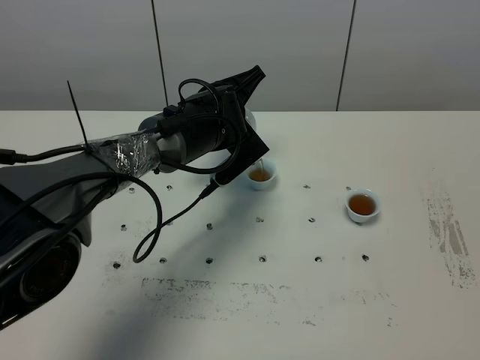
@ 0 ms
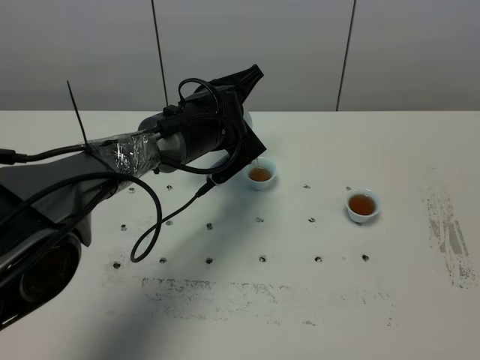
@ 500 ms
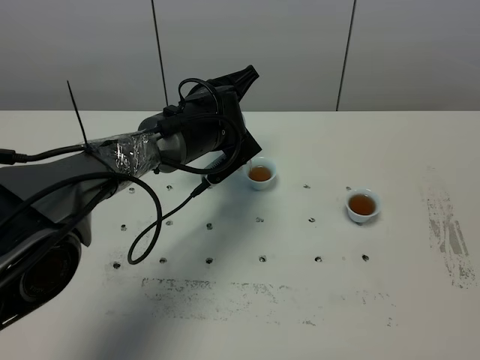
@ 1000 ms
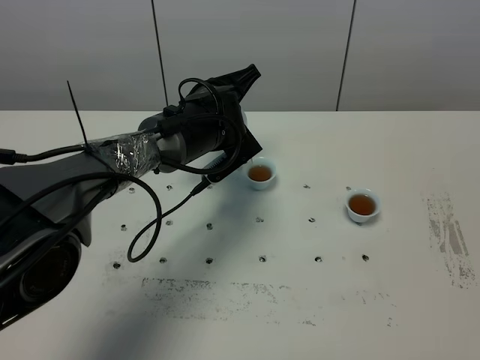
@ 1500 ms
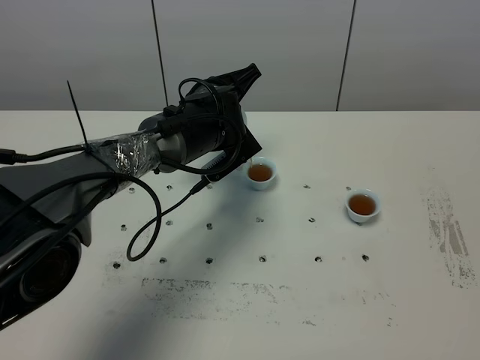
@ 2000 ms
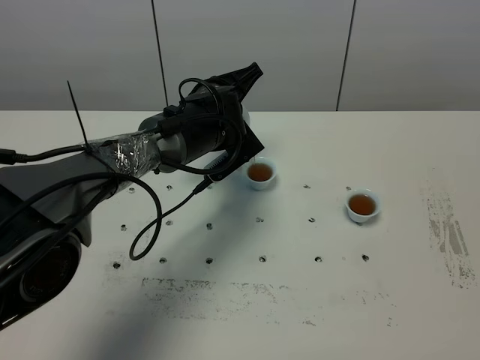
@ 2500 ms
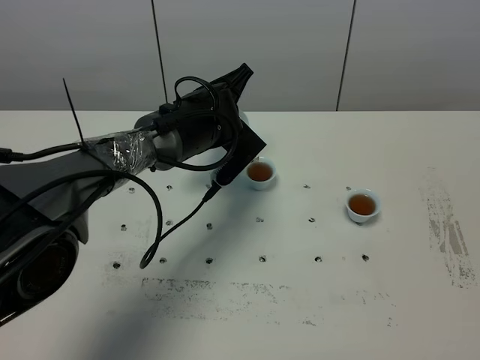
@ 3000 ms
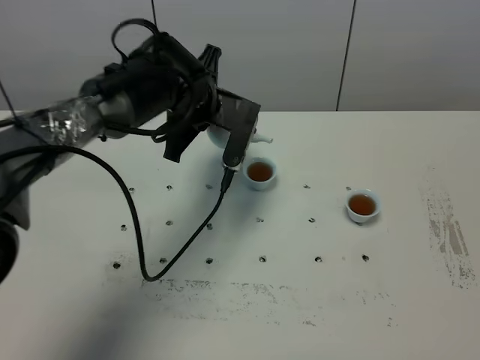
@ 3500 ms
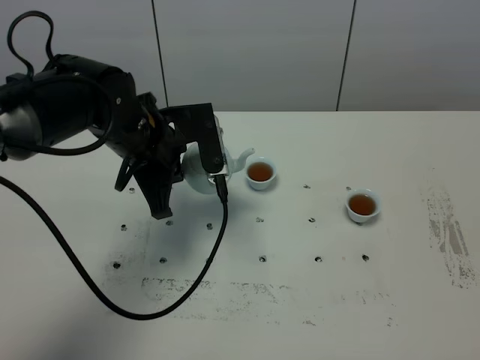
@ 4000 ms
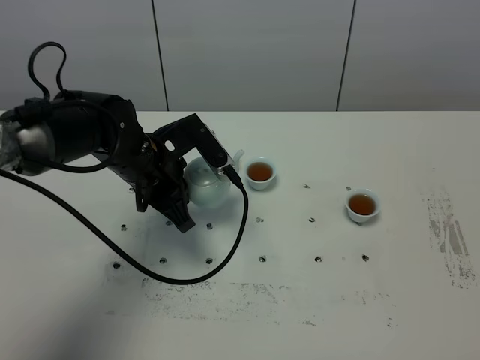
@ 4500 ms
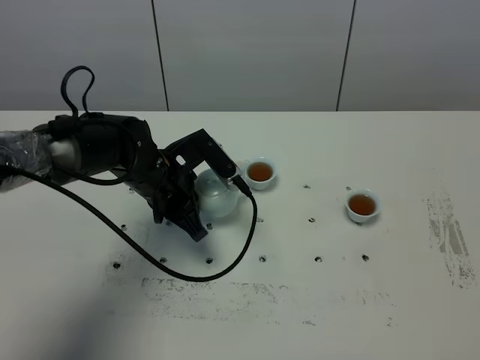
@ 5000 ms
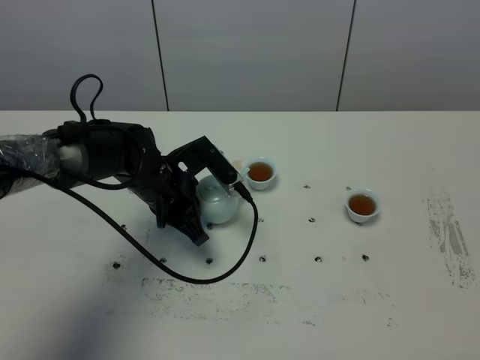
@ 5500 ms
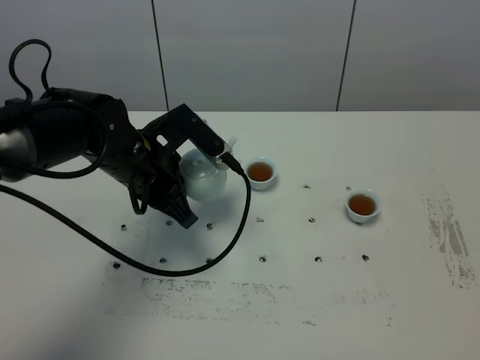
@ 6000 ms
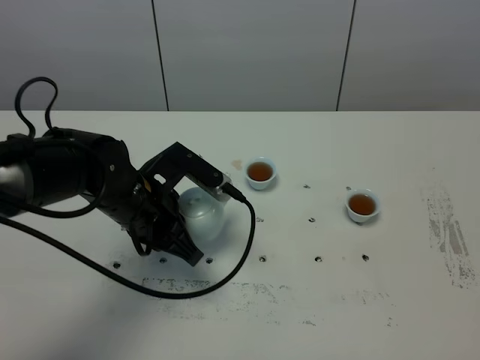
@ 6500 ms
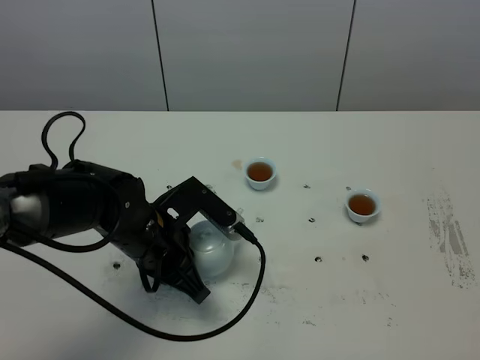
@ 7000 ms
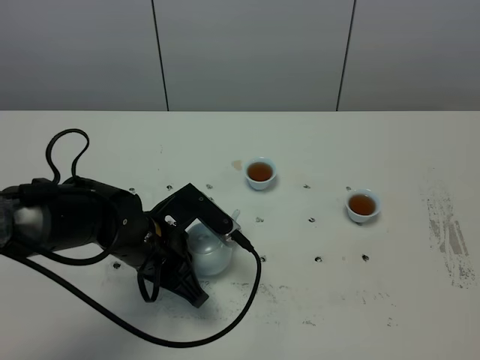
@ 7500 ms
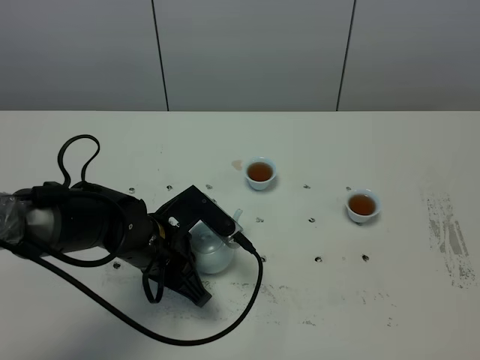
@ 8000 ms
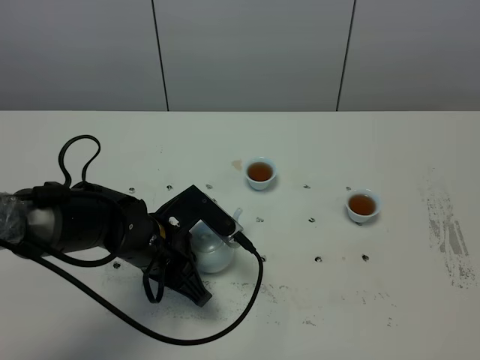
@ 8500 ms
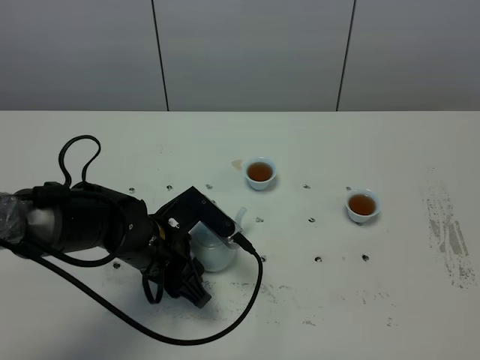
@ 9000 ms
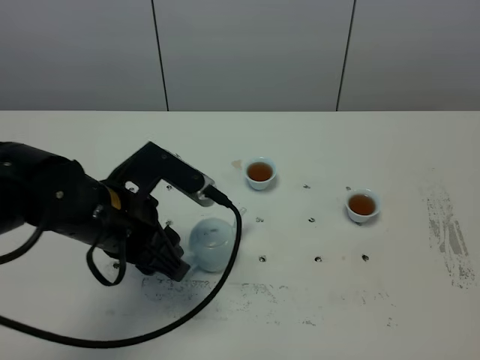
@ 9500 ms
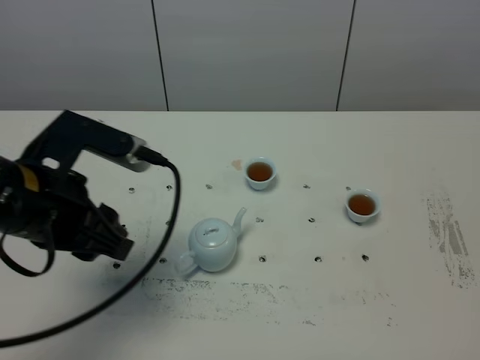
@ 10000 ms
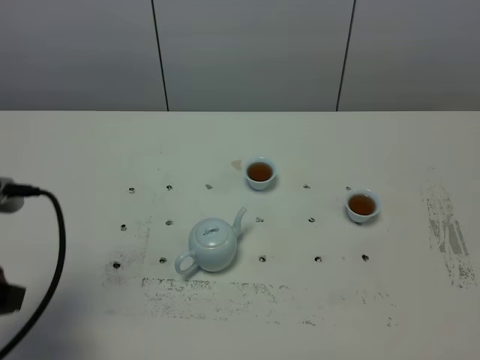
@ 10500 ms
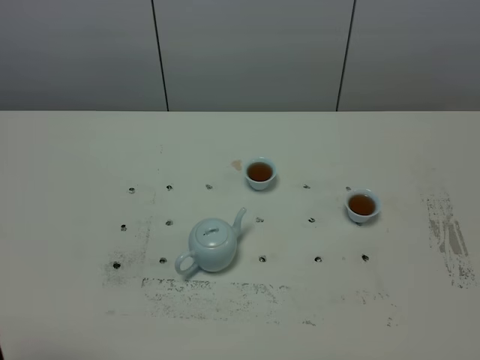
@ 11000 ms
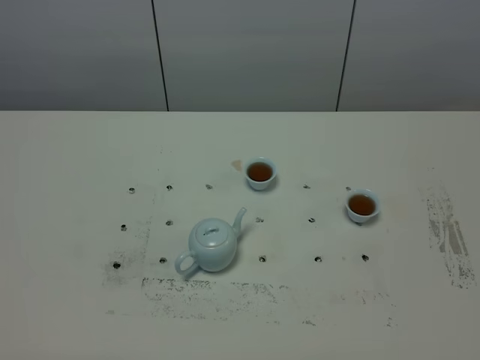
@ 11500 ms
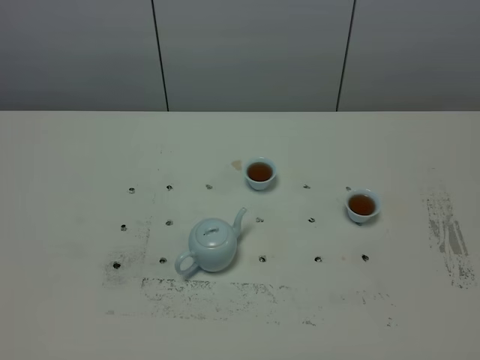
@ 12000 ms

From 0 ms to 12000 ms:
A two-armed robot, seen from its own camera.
Task of the whole recording: grasp the blue porcelain teapot and pour the tea into the two blue porcelain teacups one by one, put the blue porcelain teapot back in its original place.
Step, from 0 ms to 3000 ms: Pour tea into the teacup with the left gripper.
From 0 ms to 2000 ms: There are only small adjustments of the grippers.
From 2000 ms to 4000 ms: The left gripper moves to the left and backward, some 15 cm.
From 4000 ms to 6000 ms: The left gripper reaches approximately 10 cm downward, then returns.
From 6000 ms to 8000 ms: The left gripper travels downward and backward by roughly 10 cm.
From 8000 ms to 10000 ms: The left gripper goes roughly 20 cm upward and to the left, and opens.
From 10000 ms to 12000 ms: The left gripper is displaced backward by approximately 25 cm.

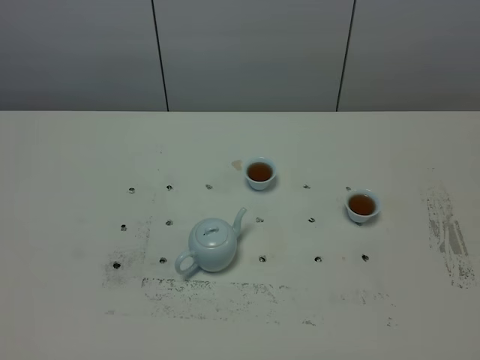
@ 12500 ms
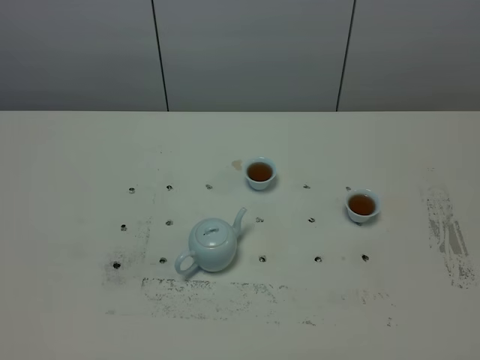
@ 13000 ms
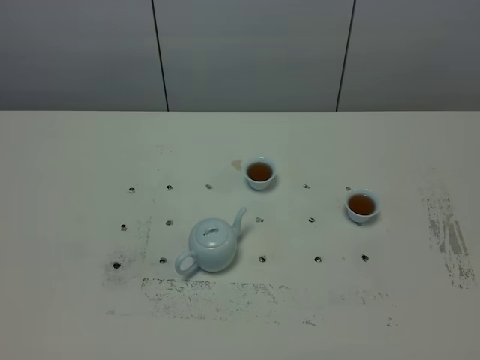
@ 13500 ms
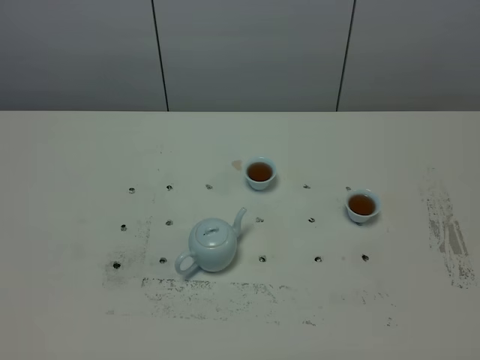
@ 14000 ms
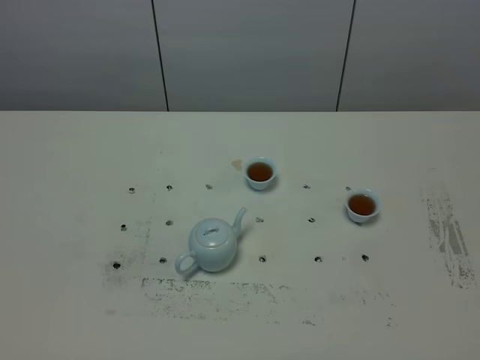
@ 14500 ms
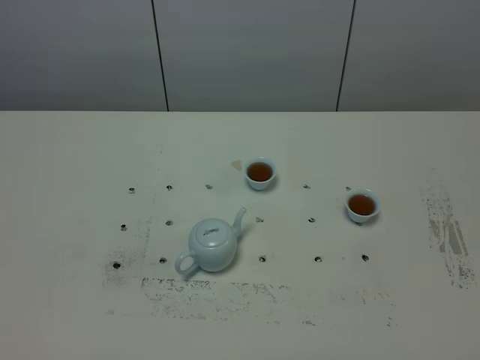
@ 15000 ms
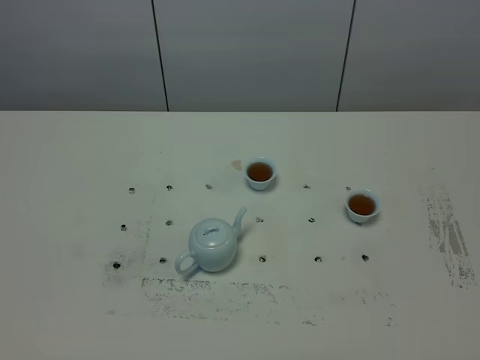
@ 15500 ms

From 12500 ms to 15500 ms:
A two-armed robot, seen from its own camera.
Task of the whole recording: grasp the blue porcelain teapot and pour the tea into the two blue porcelain teacups one by one, put the blue porcelain teapot back in its original place.
From 12500 ms to 15500 ms: The two grippers keep their place.

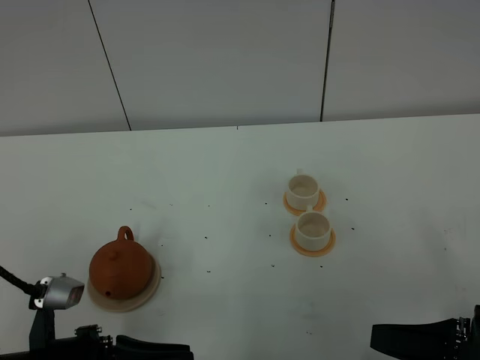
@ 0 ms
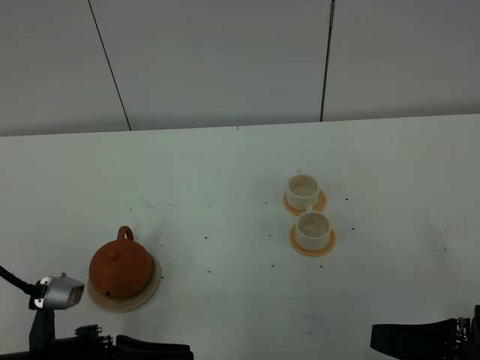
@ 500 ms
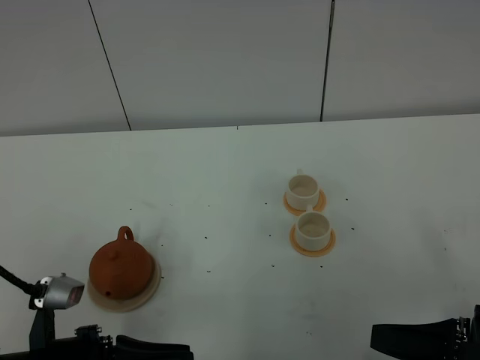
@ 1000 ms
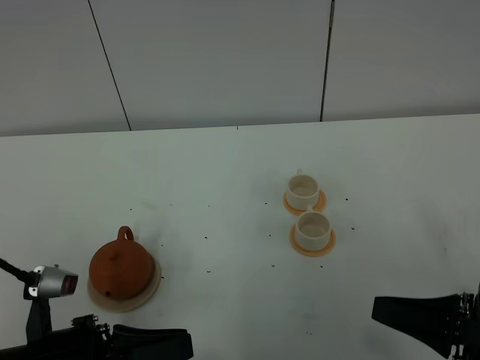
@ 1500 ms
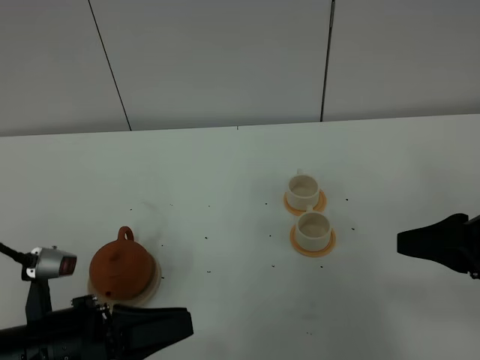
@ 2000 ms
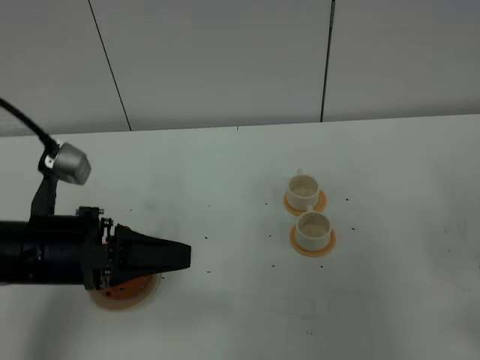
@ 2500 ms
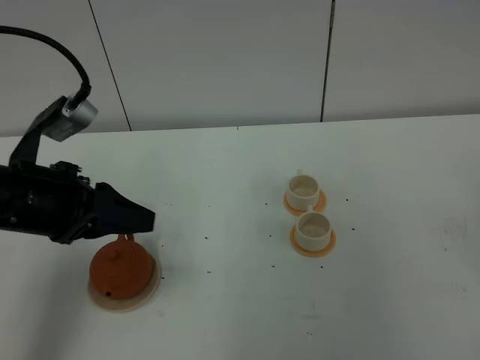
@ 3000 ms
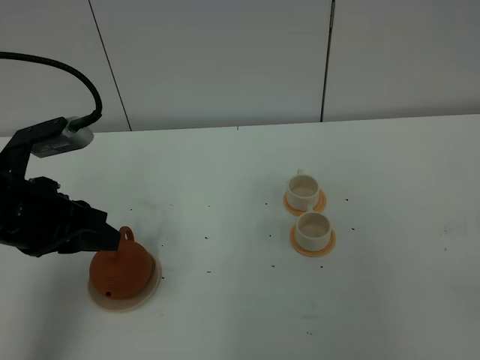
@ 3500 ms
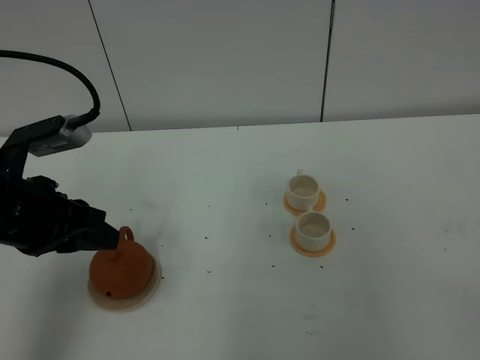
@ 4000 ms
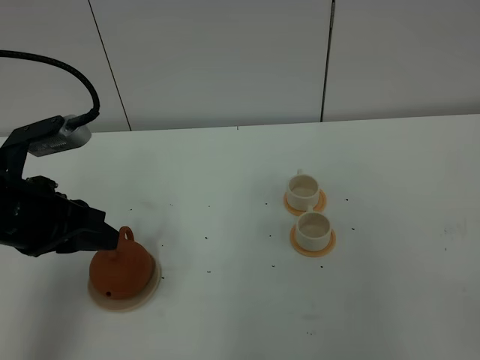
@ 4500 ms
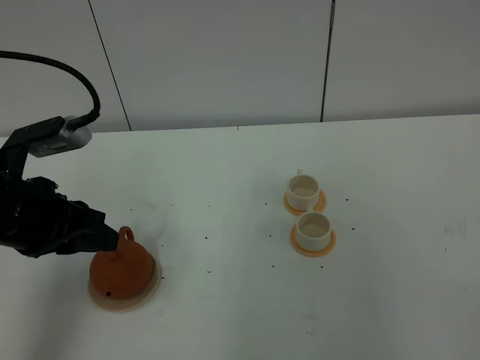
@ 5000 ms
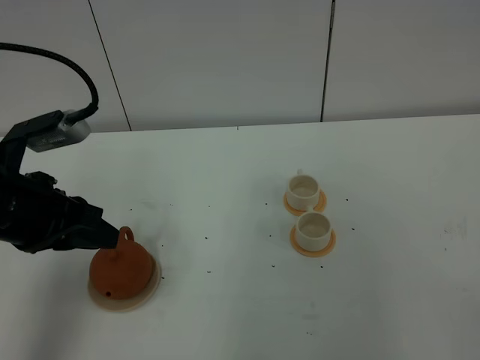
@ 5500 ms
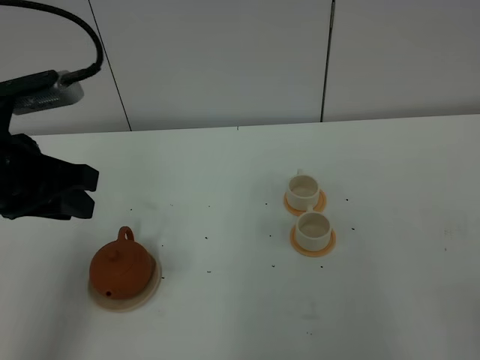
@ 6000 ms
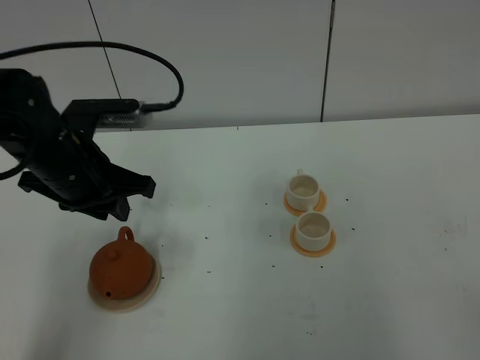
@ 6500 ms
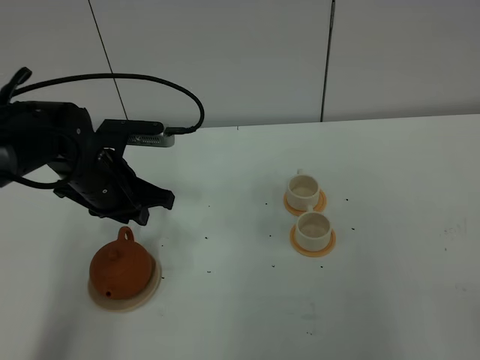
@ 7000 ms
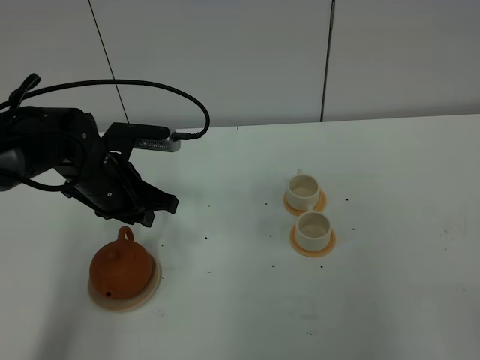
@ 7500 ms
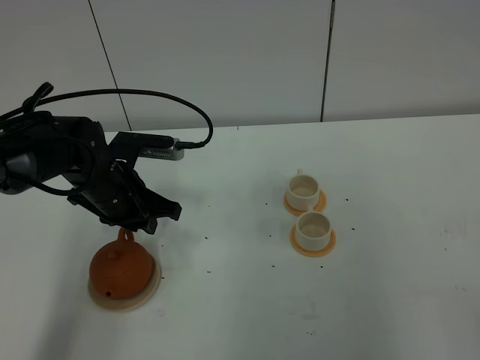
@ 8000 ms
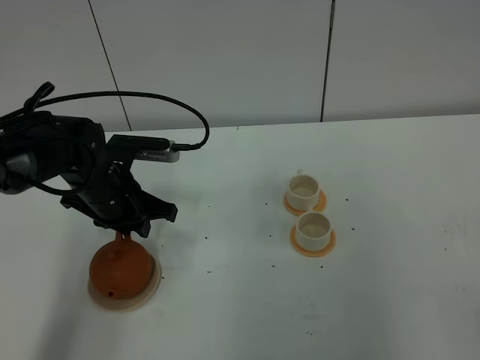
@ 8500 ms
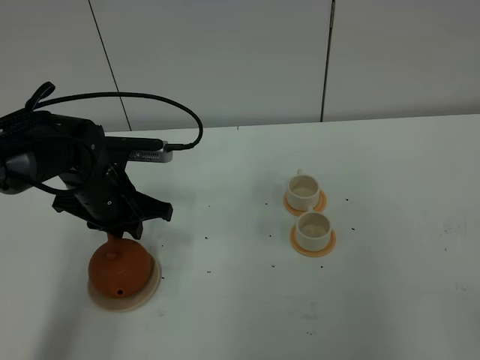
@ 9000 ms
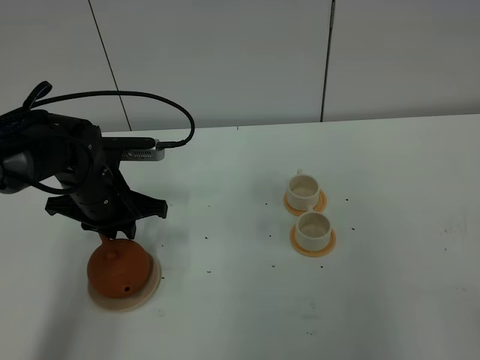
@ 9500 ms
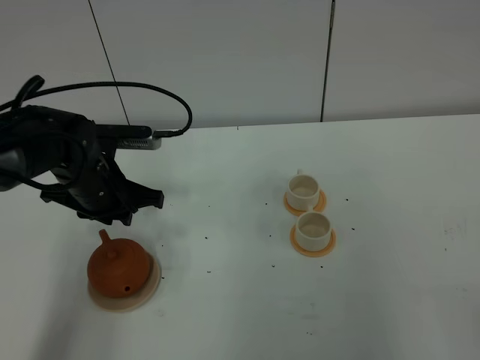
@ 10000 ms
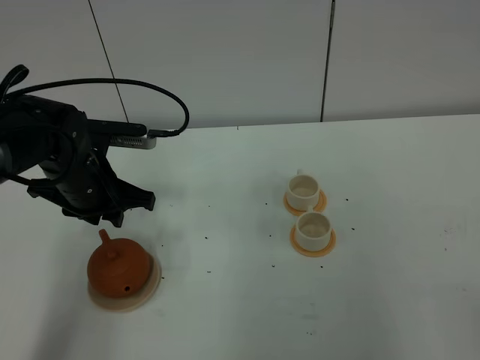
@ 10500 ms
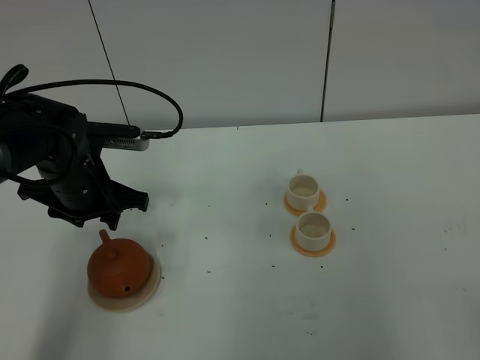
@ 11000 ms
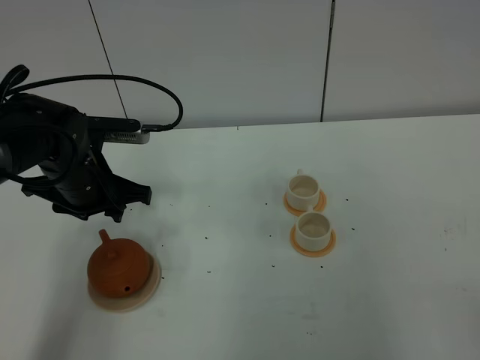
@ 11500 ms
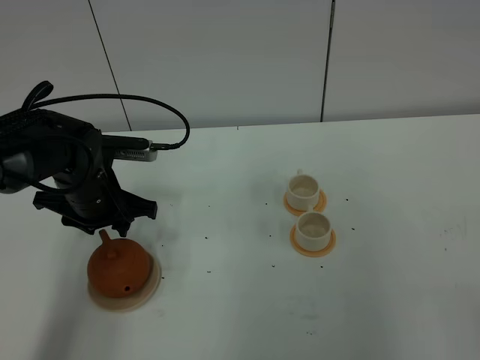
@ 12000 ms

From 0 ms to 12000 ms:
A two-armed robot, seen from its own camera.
Task of the whole recording: grasp the brown teapot and pour the tea into the two white teacups one by one, put the brown teapot back in its original place.
From 0 ms to 2000 ms: The right gripper heads forward and upward, covering about 10 cm.
From 2000 ms to 4000 ms: The right gripper shifts roughly 20 cm backward, while the left gripper moves forward and upward, roughly 15 cm.
From 4000 ms to 6000 ms: The left gripper shifts roughly 5 cm upward.
From 6000 ms to 8000 ms: The left gripper heads downward and forward, covering approximately 20 cm.
From 8000 ms to 10000 ms: The grippers move only a little.
From 10000 ms to 12000 ms: The left gripper opens.
